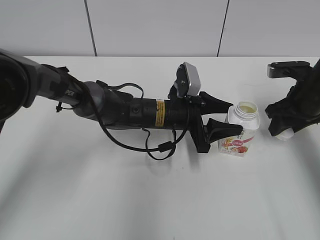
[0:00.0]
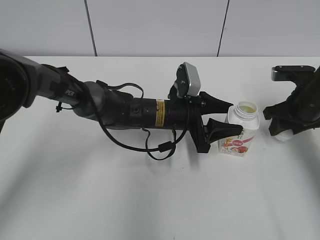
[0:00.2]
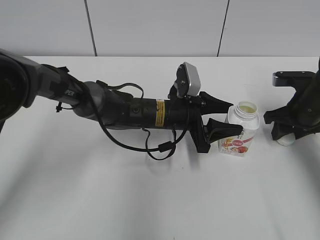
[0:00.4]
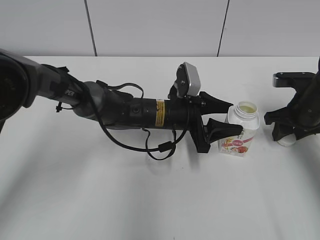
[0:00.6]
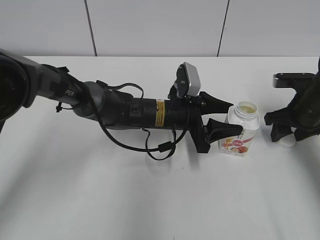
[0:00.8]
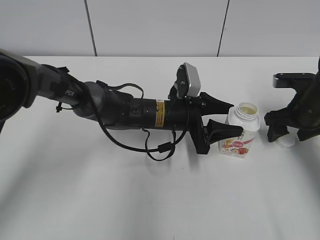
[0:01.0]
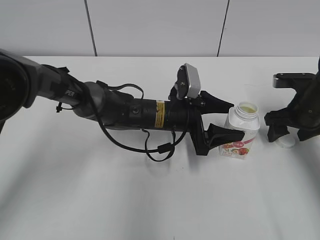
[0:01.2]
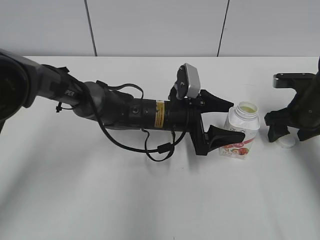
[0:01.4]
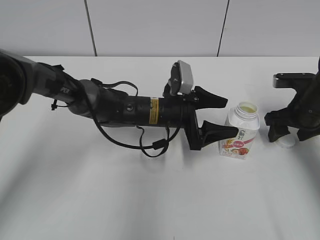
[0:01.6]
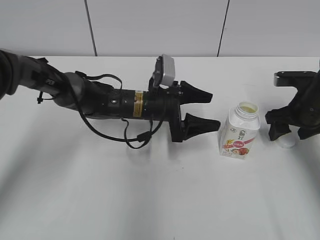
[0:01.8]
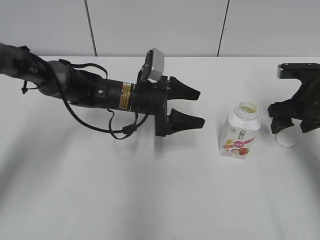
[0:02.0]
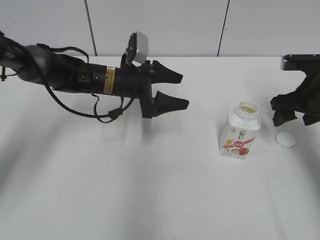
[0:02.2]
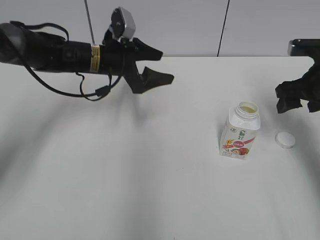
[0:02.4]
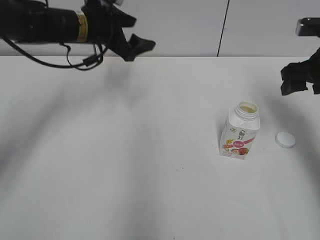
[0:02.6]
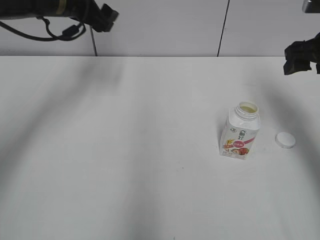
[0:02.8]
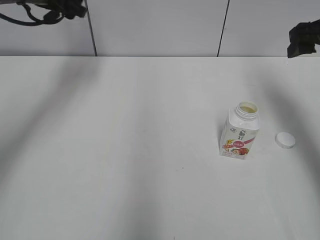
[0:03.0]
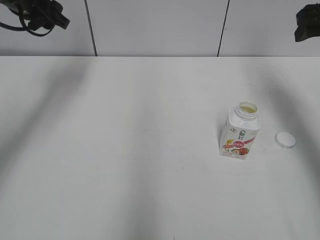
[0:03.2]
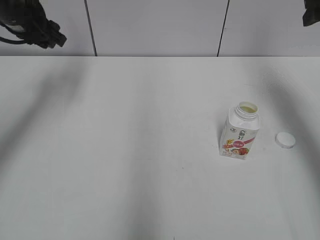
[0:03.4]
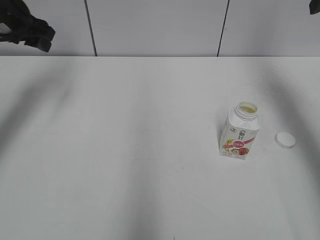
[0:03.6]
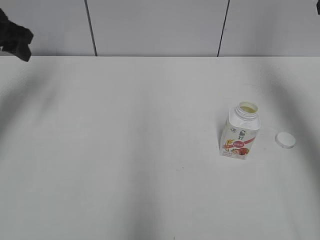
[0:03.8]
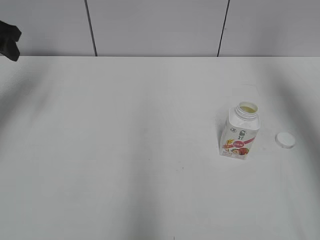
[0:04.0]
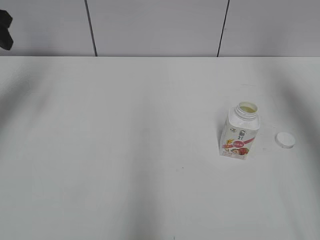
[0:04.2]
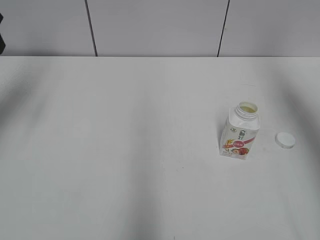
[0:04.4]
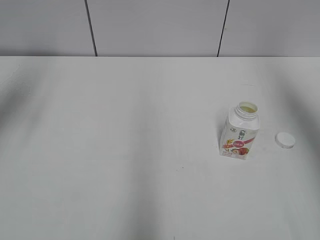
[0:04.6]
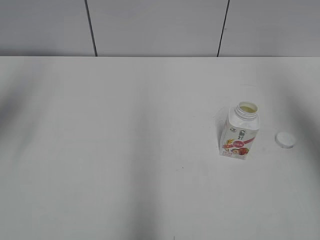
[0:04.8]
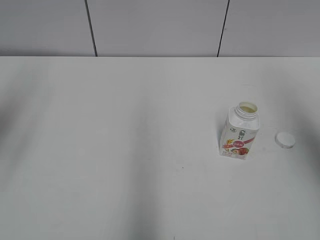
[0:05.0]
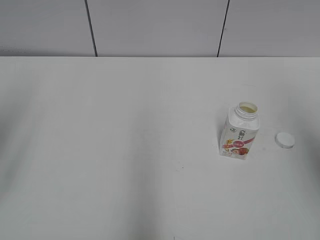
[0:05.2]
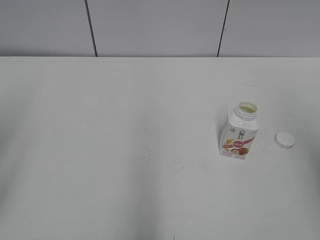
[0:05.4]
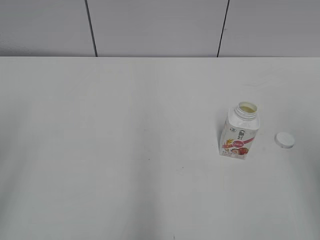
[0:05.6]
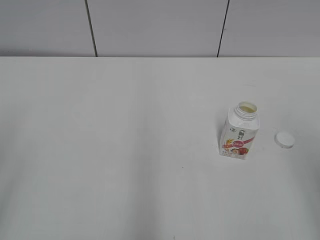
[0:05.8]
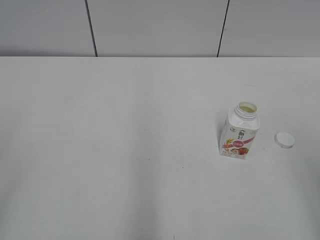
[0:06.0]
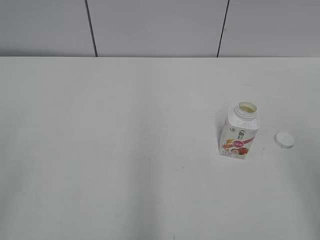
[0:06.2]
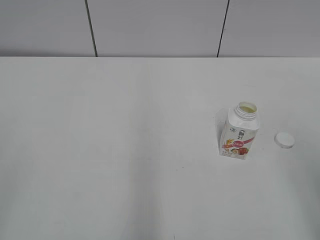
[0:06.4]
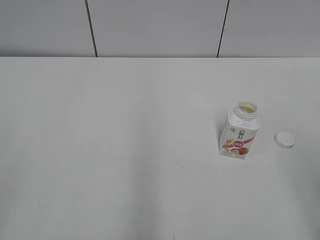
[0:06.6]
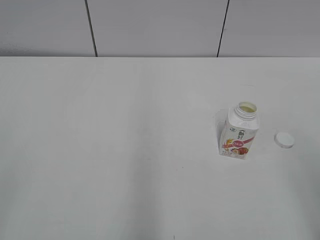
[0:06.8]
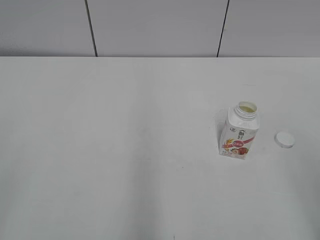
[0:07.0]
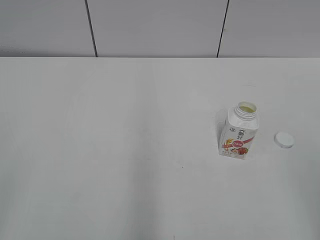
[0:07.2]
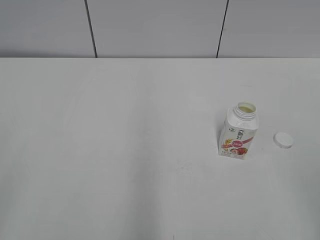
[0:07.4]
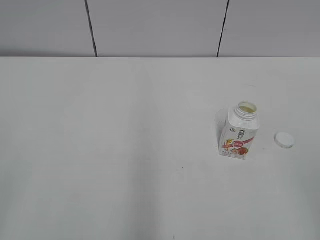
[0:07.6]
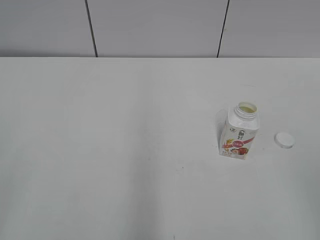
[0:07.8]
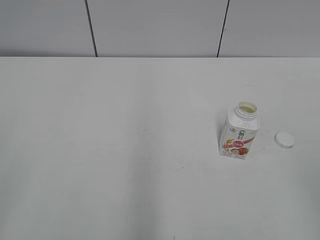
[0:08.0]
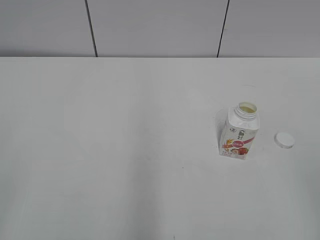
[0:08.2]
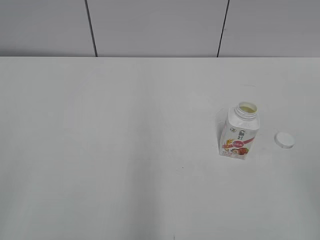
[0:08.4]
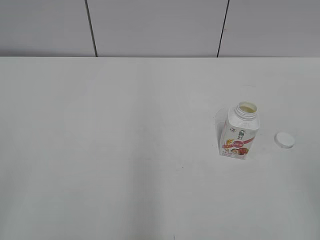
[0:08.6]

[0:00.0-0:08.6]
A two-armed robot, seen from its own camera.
Step, 0:01.0 to 0:01.2: Place the Yili Changqing with the left hand.
0:00.0 to 0:01.4: The right gripper opens, while the left gripper opens its fingers.
0:01.4 to 0:02.8: The left gripper is displaced to the left, upward and forward by about 30 cm, while the right gripper shifts approximately 10 cm upward.
0:02.8 to 0:04.4: The right gripper shifts approximately 15 cm upward. The left gripper is displaced to the left and backward by about 20 cm.
0:04.4 to 0:05.8: The two grippers go roughly 25 cm backward.
